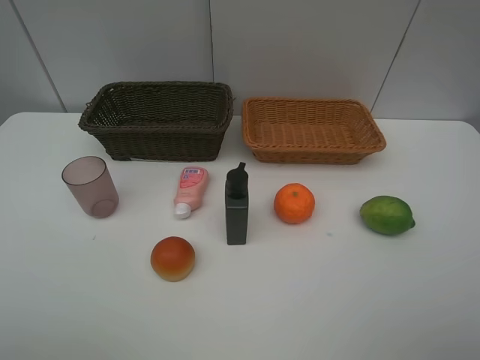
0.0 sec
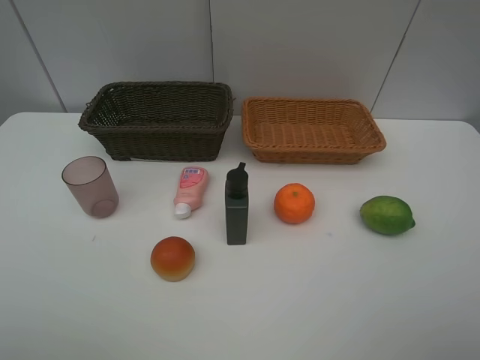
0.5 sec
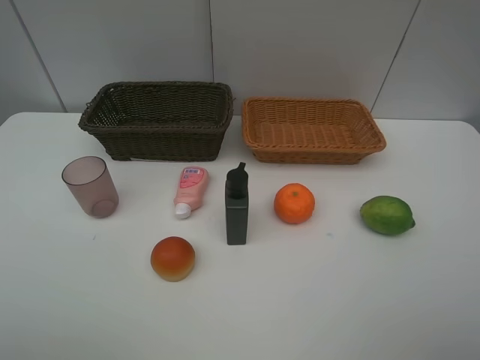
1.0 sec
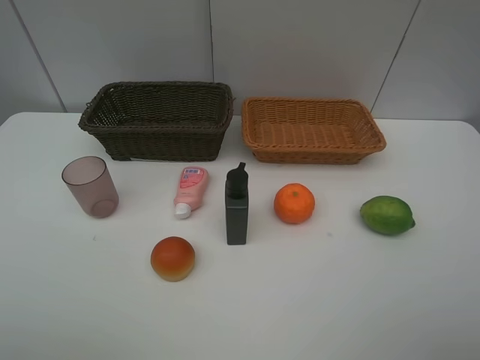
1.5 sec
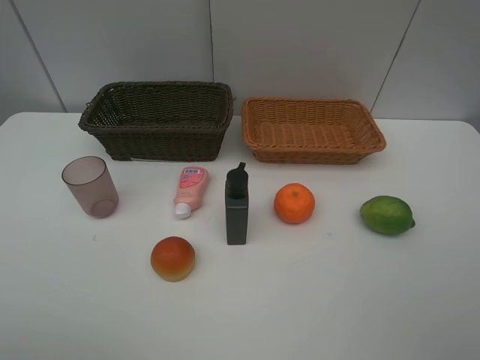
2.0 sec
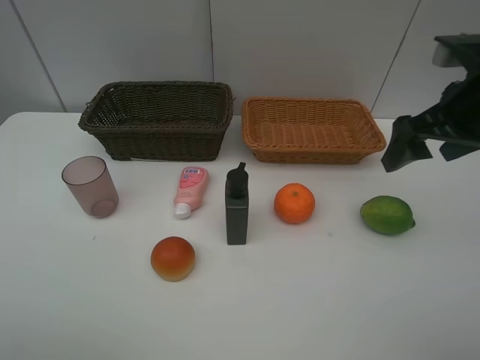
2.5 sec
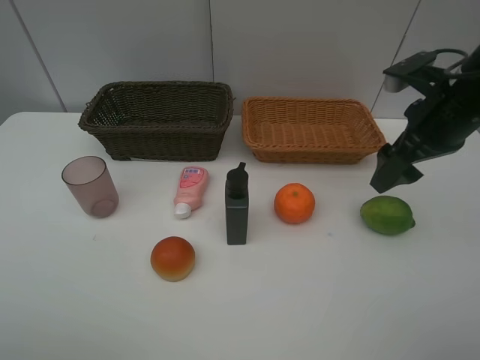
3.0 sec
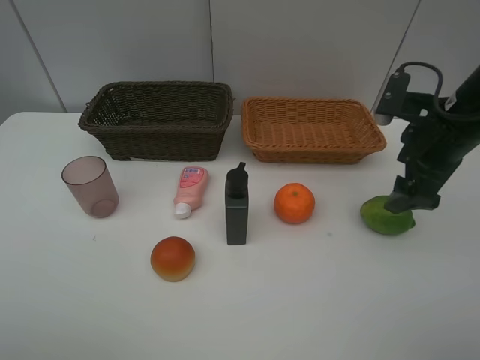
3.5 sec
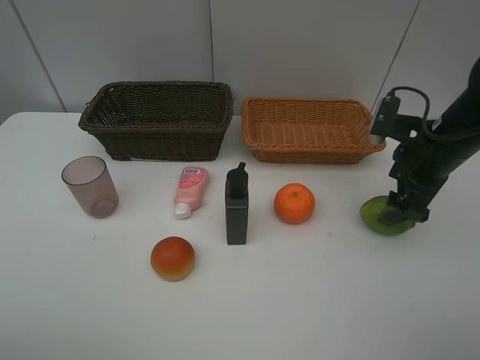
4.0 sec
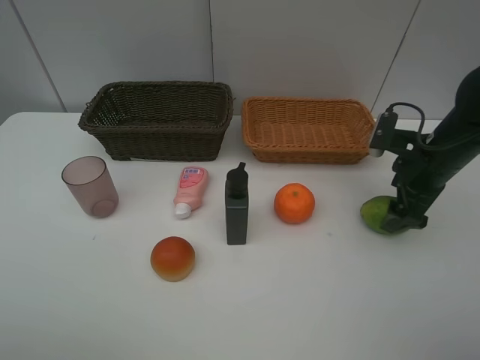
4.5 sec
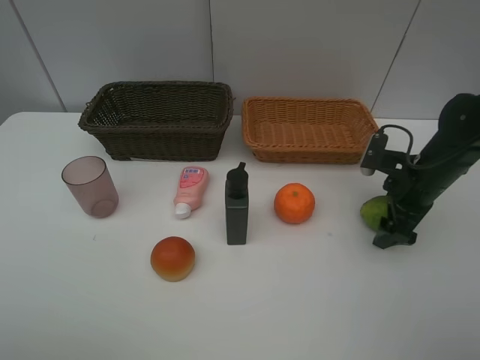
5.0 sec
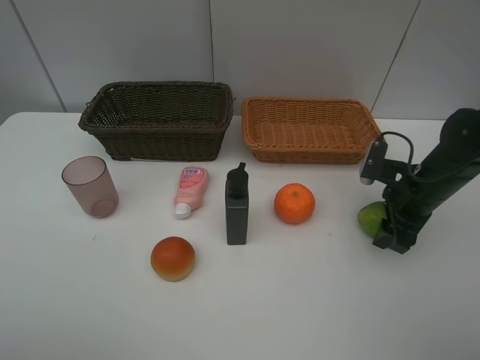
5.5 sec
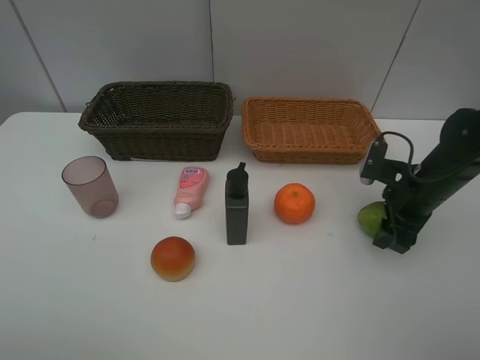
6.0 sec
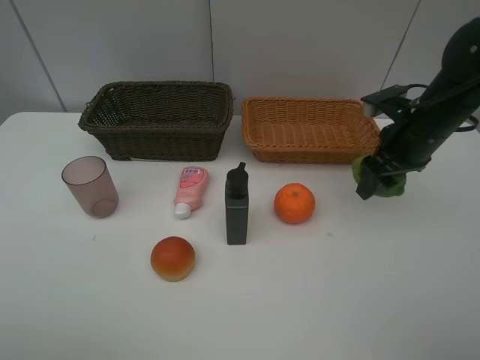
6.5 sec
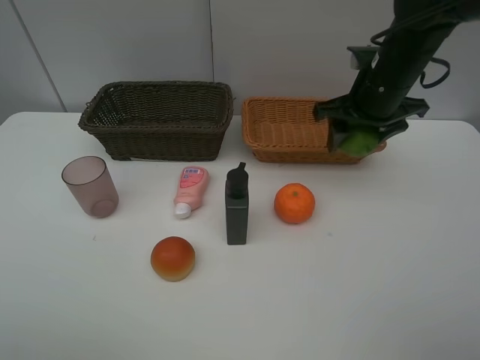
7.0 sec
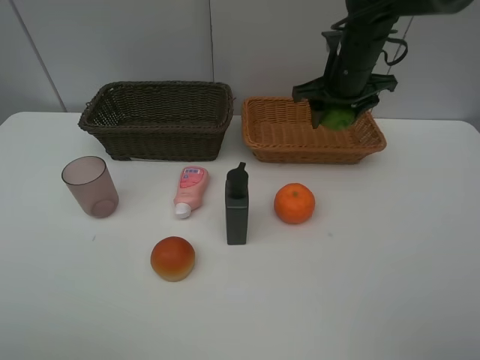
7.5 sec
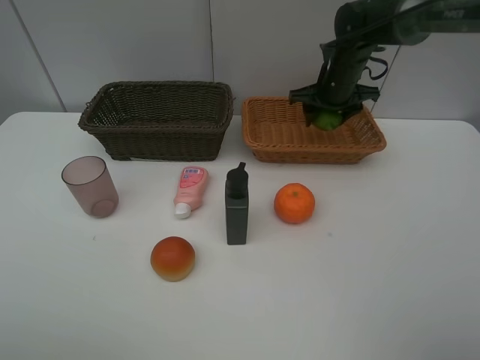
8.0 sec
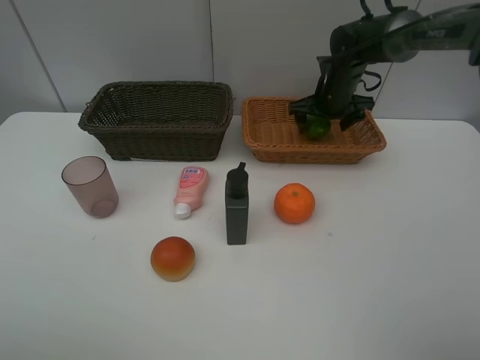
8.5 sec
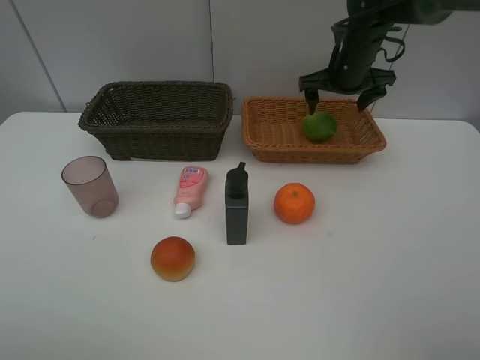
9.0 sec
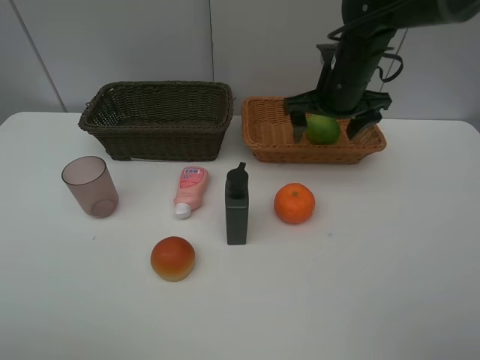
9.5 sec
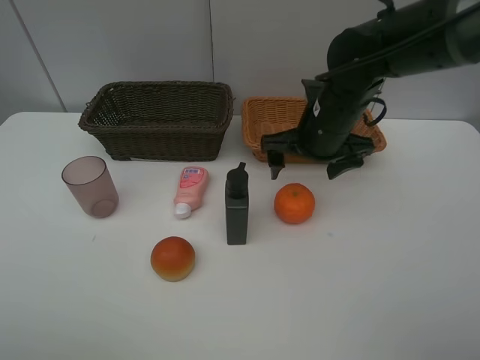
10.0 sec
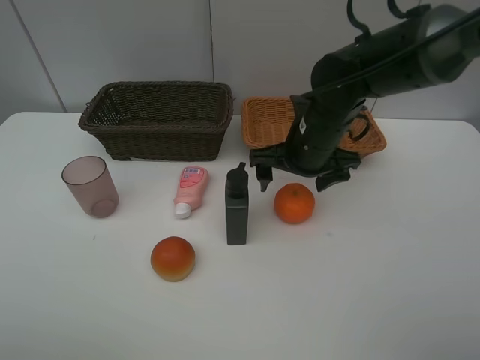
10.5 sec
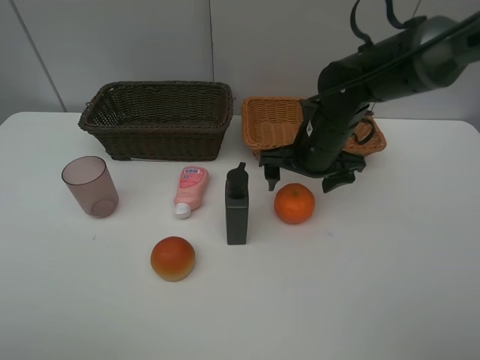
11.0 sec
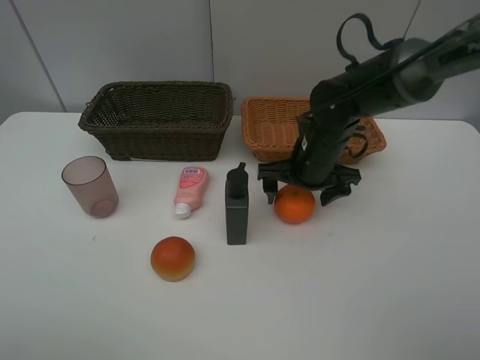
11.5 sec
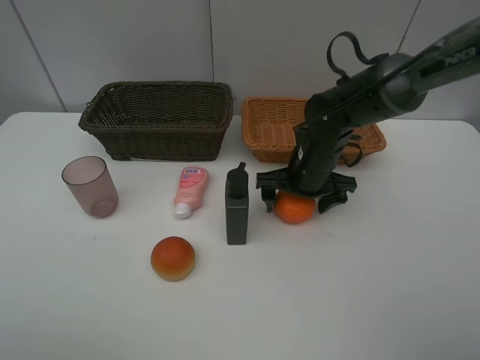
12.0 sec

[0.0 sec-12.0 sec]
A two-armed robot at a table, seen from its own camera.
Task of the whole recording: place multiple objects separately in different baskets.
2.0 sec to 4.0 sec: The right gripper shifts some 25 cm forward and downward.
4.0 sec to 6.0 sec: The right gripper goes roughly 5 cm downward, and closes its fingers.
6.0 sec to 8.0 sec: The right gripper moves forward and to the left, approximately 20 cm.
8.0 sec to 10.0 sec: The right gripper goes roughly 15 cm backward, and opens.
10.0 sec to 12.0 sec: The right gripper is displaced downward by approximately 10 cm.

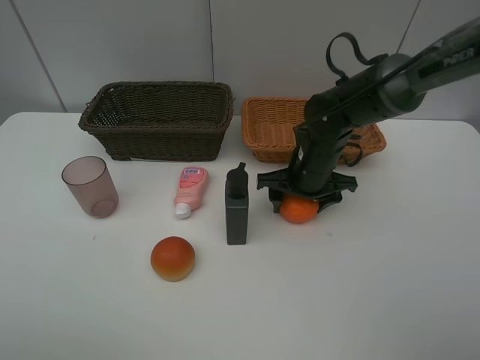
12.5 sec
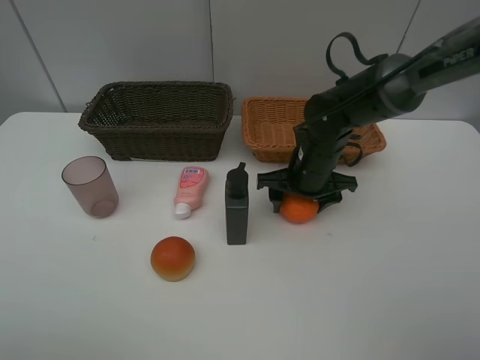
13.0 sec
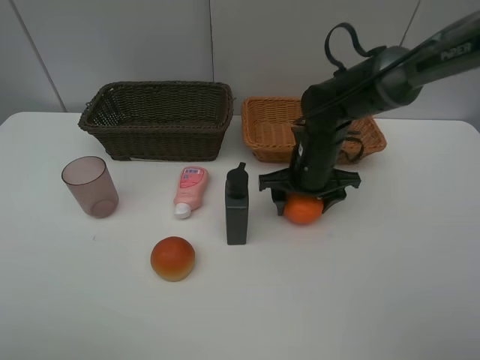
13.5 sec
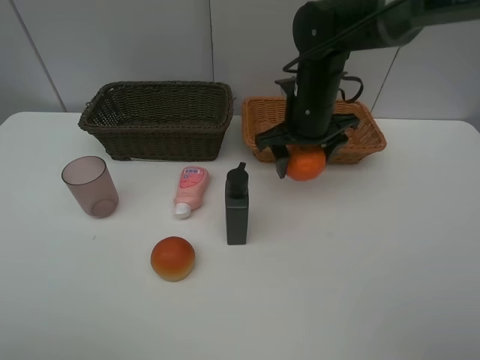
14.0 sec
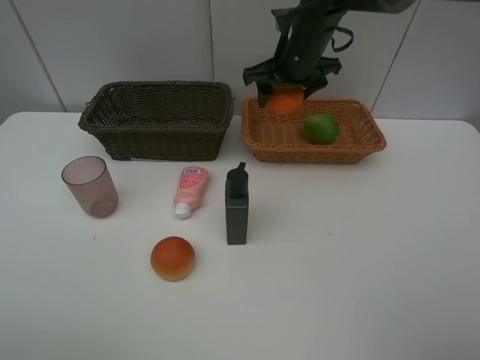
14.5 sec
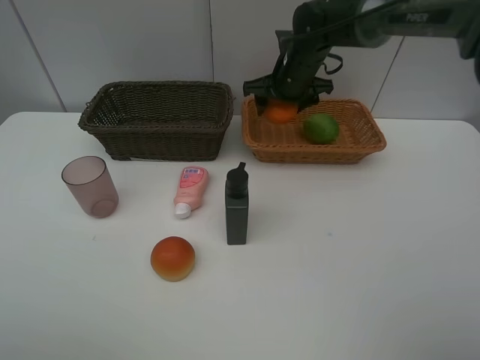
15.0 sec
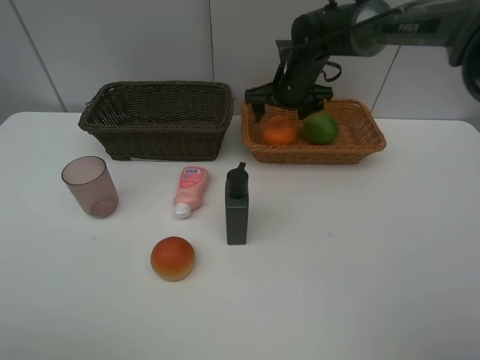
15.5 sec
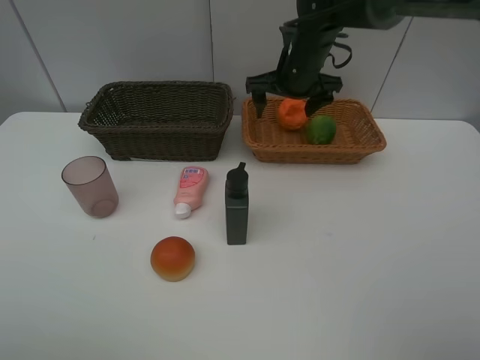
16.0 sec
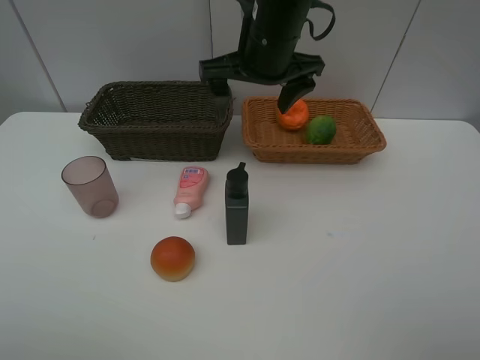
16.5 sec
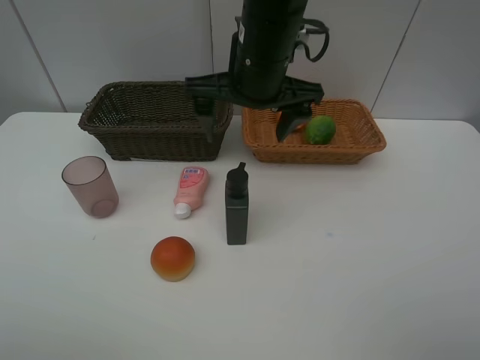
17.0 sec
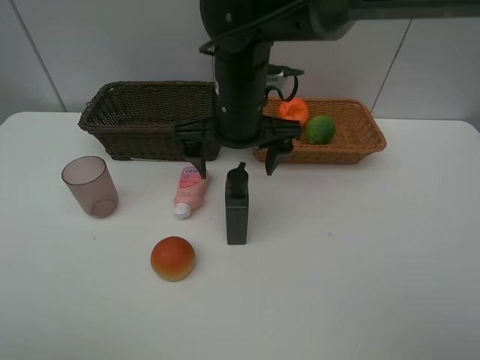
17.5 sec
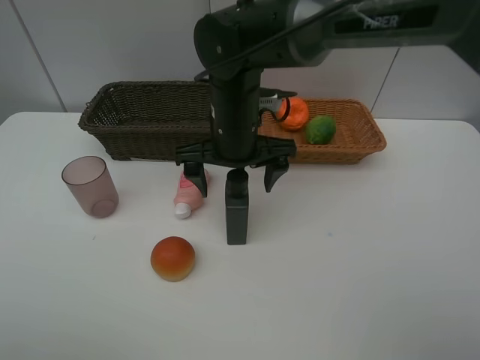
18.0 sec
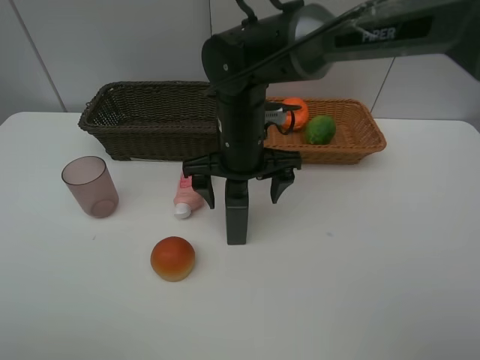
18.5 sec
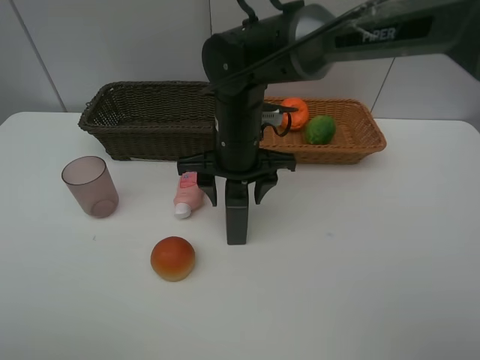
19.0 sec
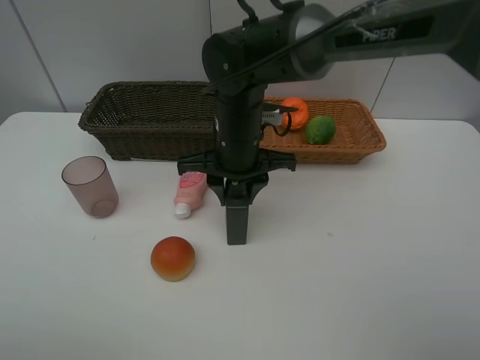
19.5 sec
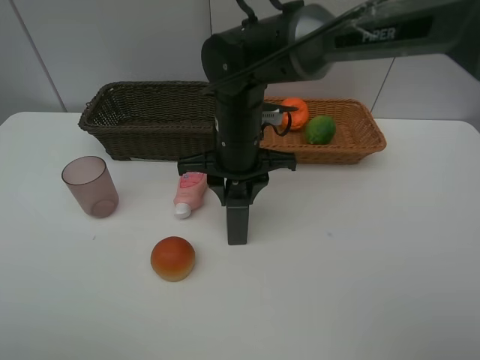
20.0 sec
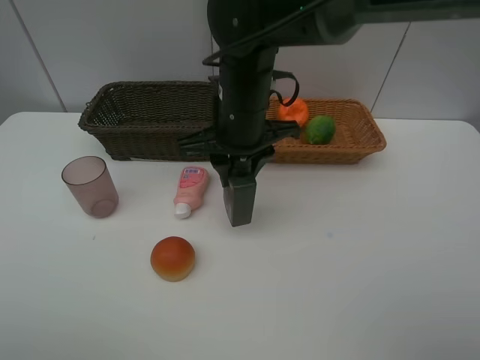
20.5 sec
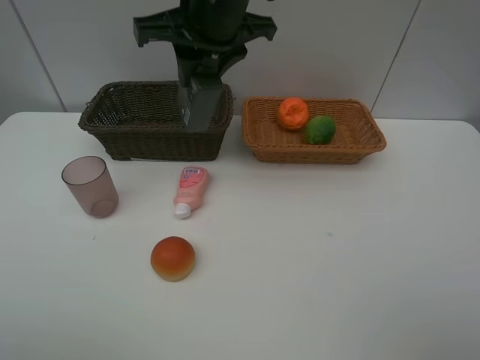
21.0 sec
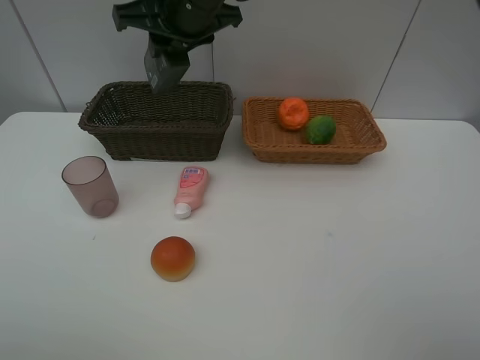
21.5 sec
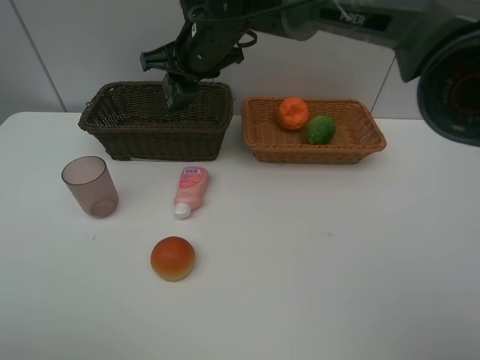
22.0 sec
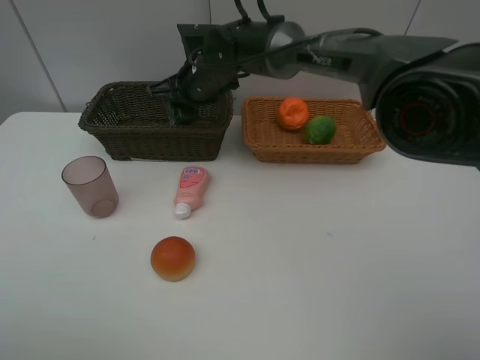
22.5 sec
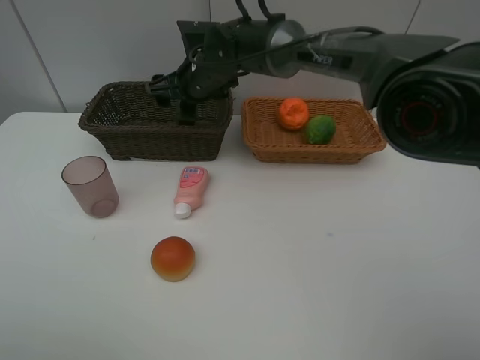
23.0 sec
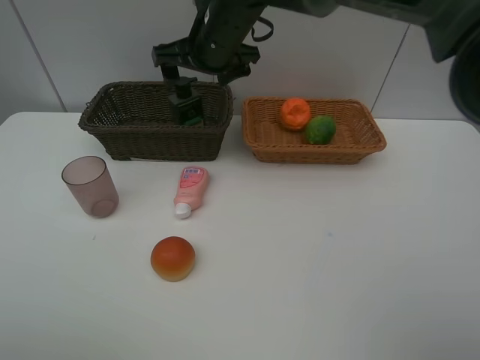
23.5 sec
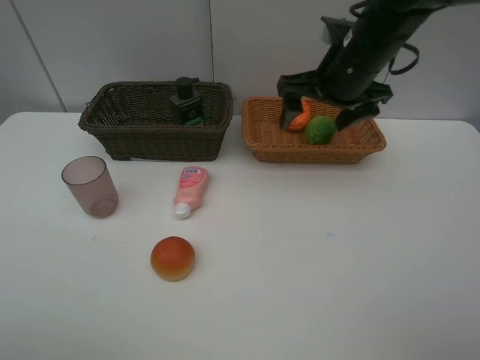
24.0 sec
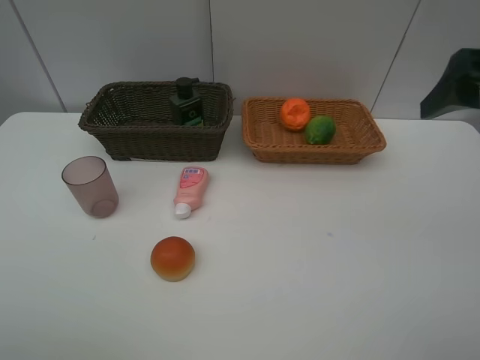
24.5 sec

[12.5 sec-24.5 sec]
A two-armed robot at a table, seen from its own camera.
Task of the whole recording: place multiple objects separately in different baskets.
12.5 sec to 14.5 sec: The right gripper shifts about 15 cm upward and forward.
14.5 sec to 16.5 sec: The right gripper is displaced backward and to the left by some 10 cm, and opens its fingers.
16.5 sec to 18.5 sec: The right gripper goes some 10 cm downward.
18.5 sec to 20.5 sec: The right gripper heads upward, covering roughly 5 cm, and closes up.
20.5 sec to 22.5 sec: The right gripper goes some 15 cm forward, and reaches some 10 cm upward, then returns.
22.5 sec to 24.5 sec: The right gripper shifts approximately 40 cm to the right, backward and upward, and opens.

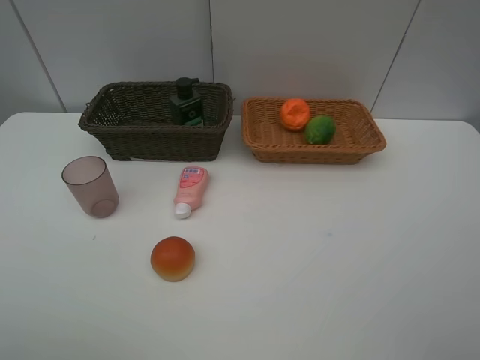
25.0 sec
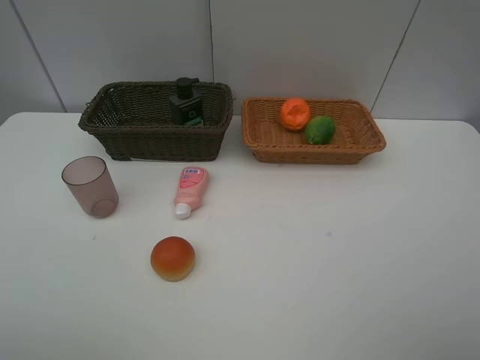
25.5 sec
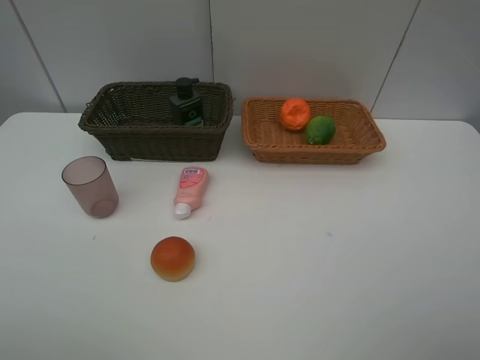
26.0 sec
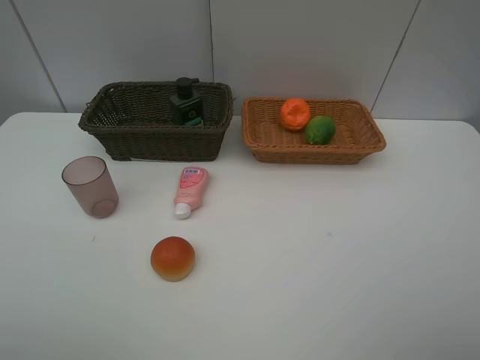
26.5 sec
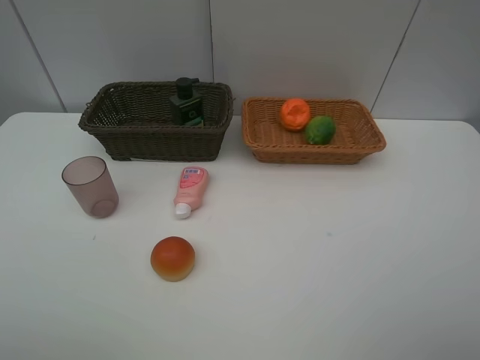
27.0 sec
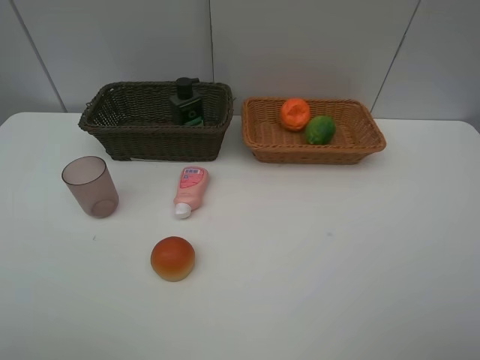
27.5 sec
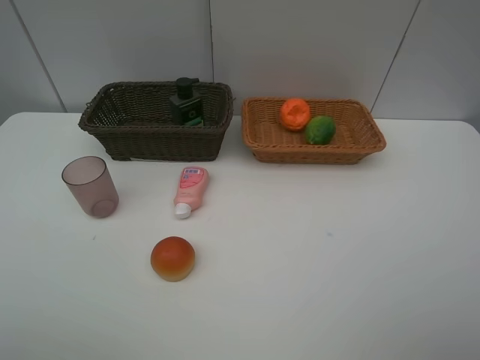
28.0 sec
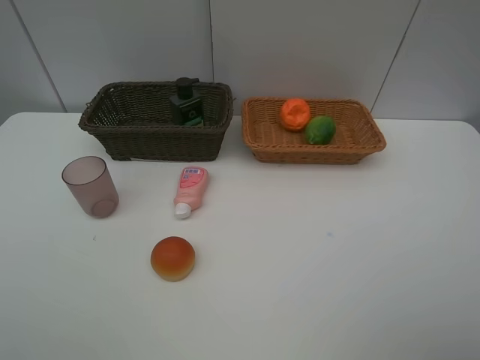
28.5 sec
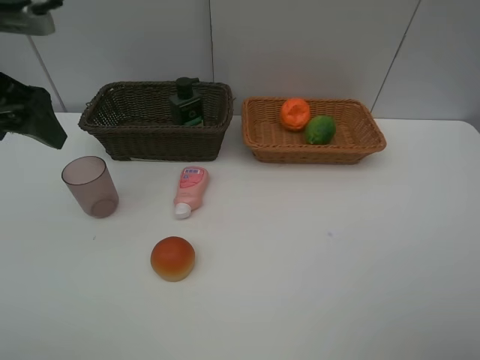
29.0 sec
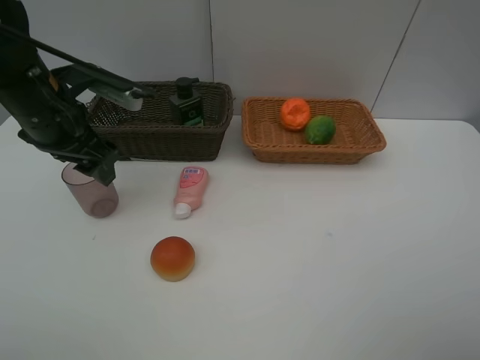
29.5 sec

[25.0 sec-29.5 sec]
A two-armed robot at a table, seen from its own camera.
Task of the whole recording: place multiple objects separately in different baskets.
27.0 sec to 29.5 sec: The left gripper goes some 30 cm forward.
